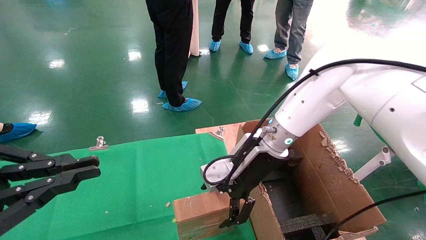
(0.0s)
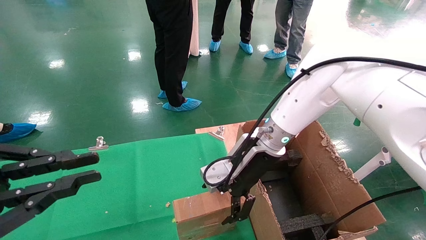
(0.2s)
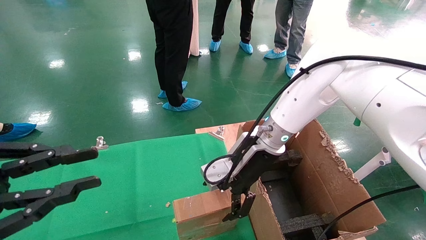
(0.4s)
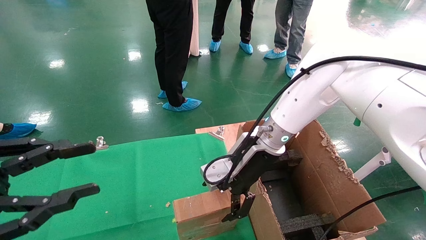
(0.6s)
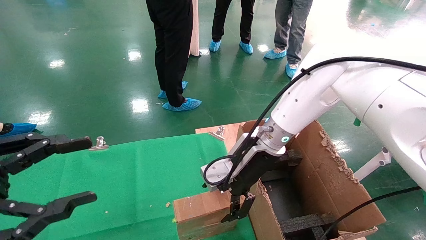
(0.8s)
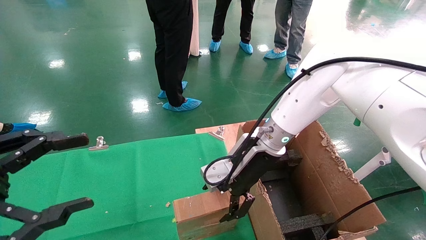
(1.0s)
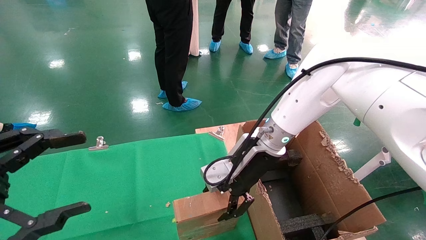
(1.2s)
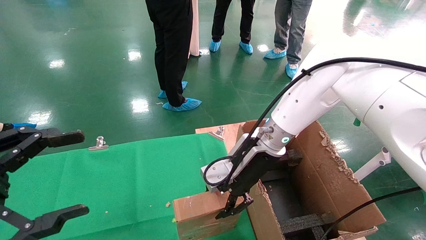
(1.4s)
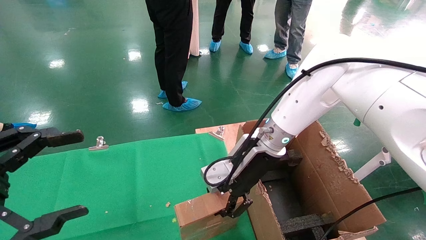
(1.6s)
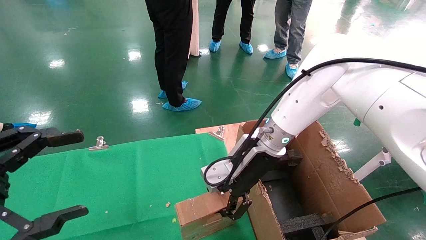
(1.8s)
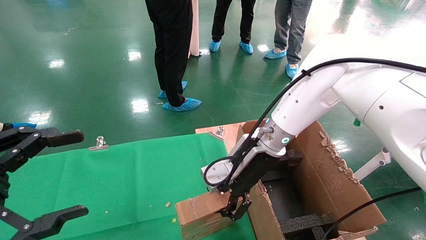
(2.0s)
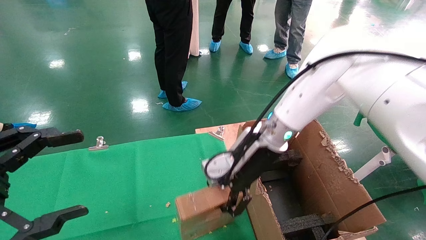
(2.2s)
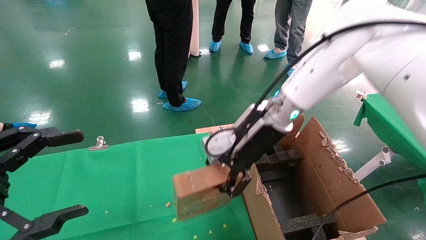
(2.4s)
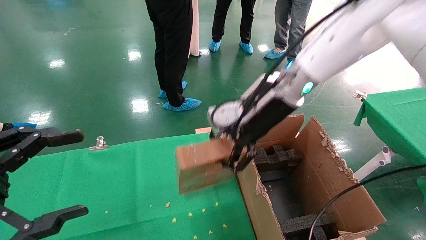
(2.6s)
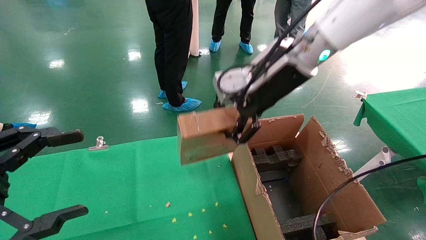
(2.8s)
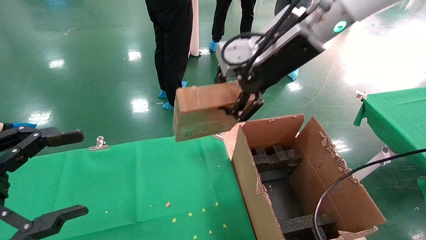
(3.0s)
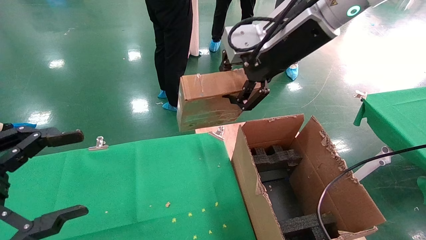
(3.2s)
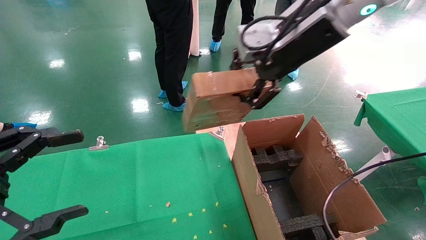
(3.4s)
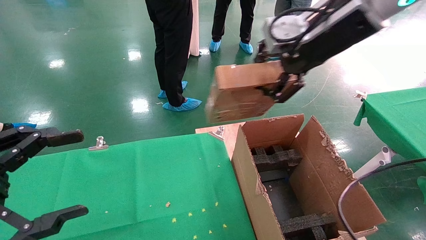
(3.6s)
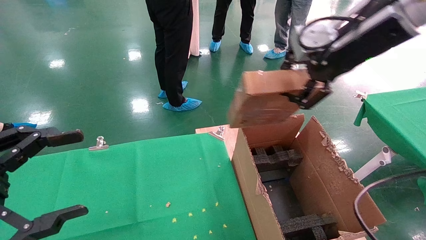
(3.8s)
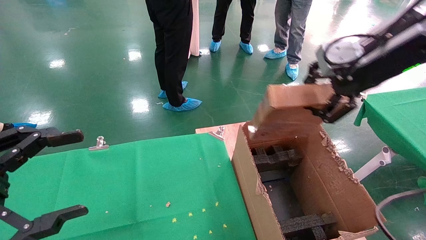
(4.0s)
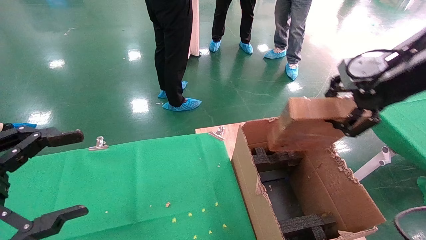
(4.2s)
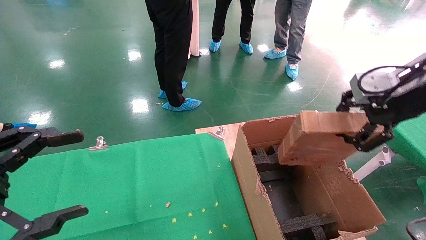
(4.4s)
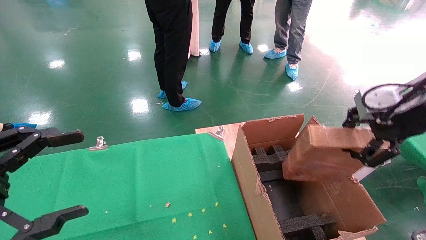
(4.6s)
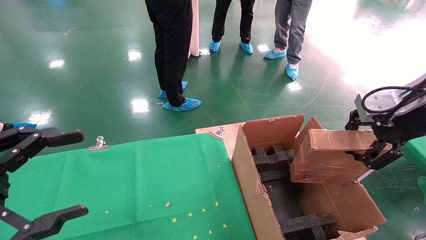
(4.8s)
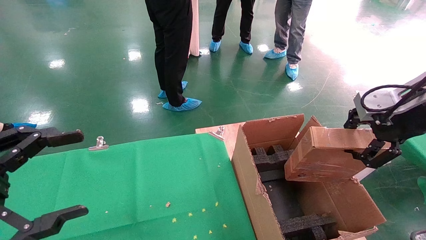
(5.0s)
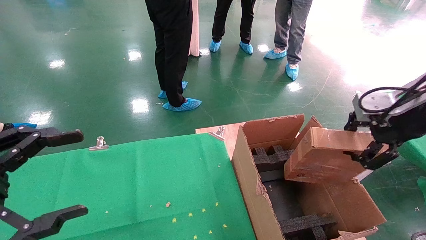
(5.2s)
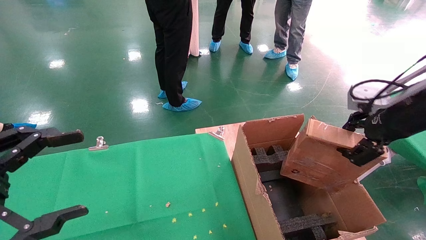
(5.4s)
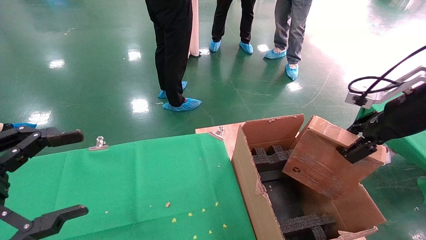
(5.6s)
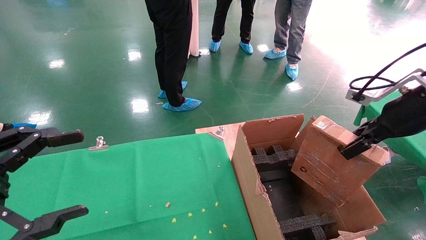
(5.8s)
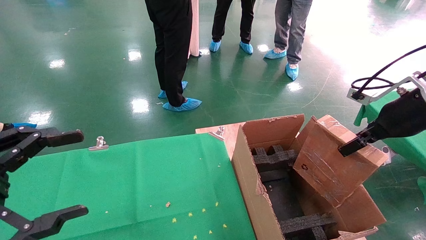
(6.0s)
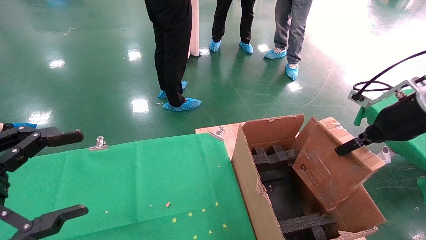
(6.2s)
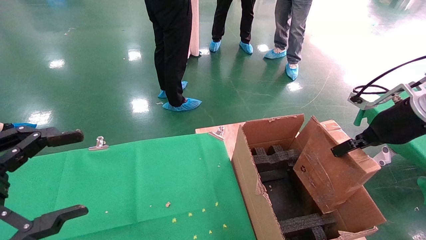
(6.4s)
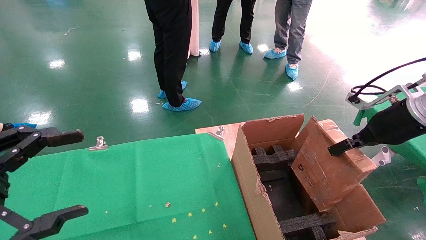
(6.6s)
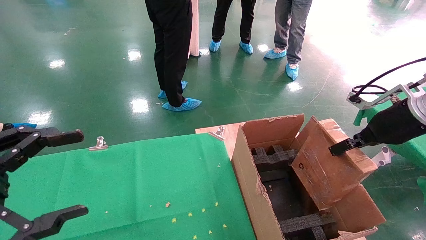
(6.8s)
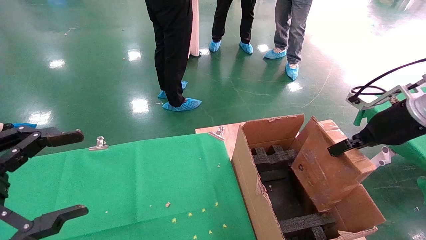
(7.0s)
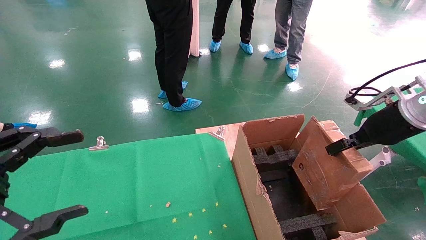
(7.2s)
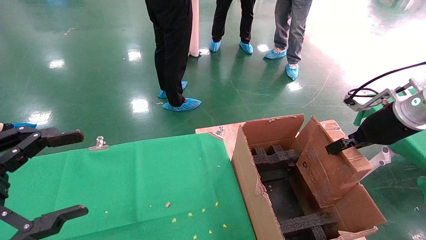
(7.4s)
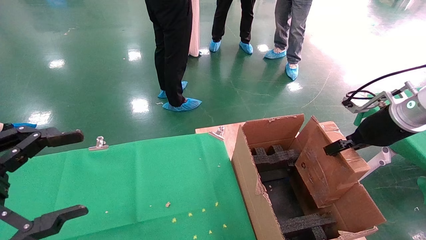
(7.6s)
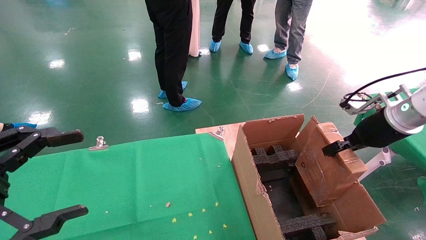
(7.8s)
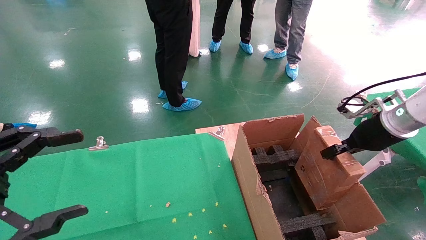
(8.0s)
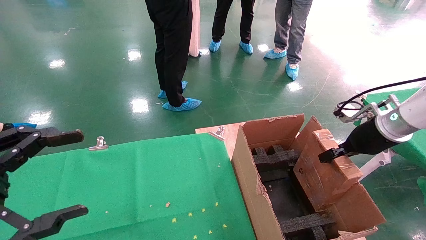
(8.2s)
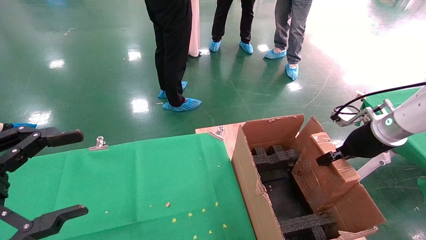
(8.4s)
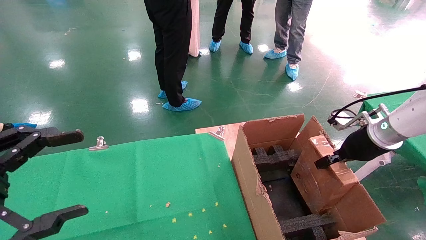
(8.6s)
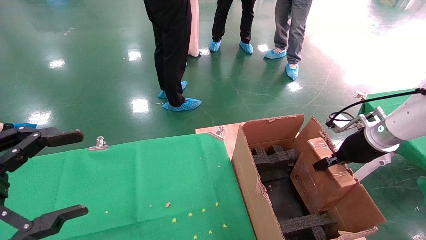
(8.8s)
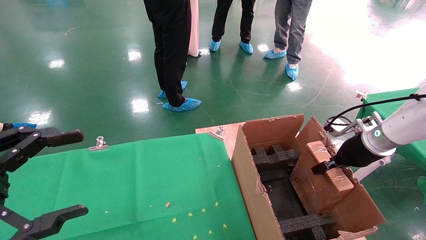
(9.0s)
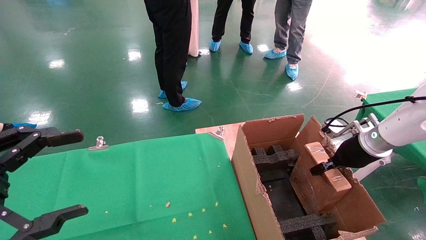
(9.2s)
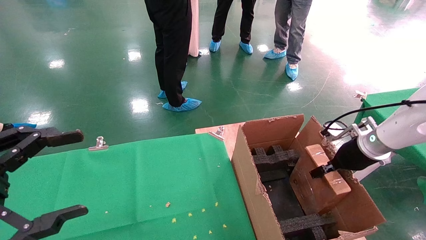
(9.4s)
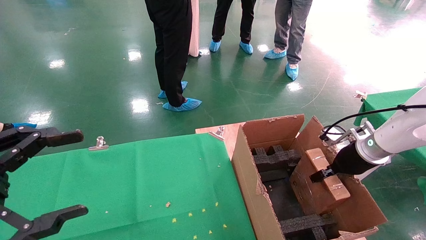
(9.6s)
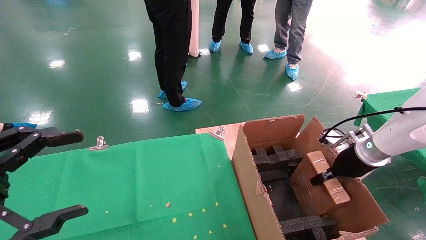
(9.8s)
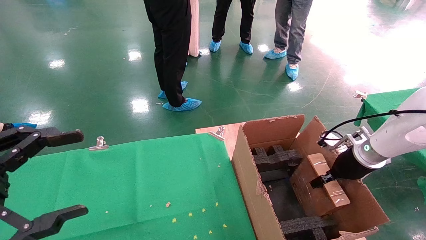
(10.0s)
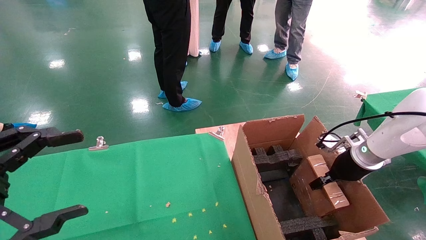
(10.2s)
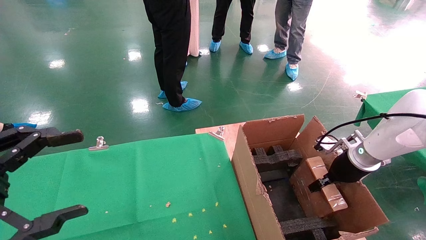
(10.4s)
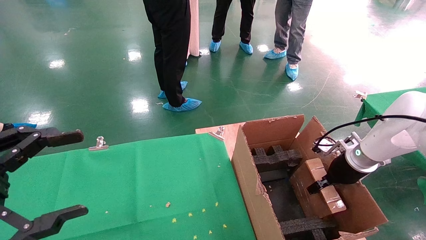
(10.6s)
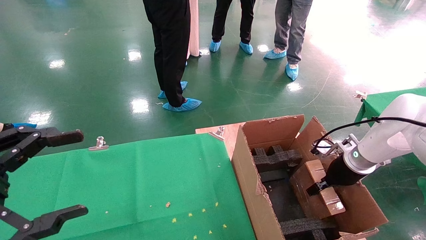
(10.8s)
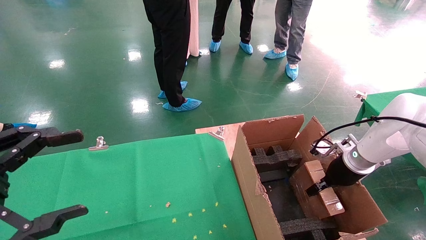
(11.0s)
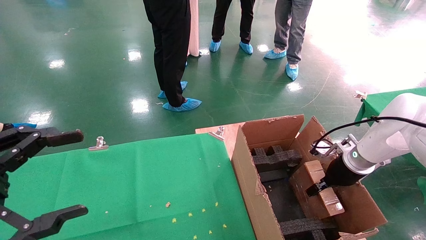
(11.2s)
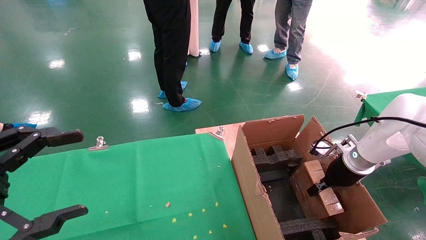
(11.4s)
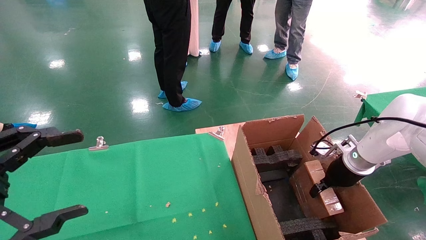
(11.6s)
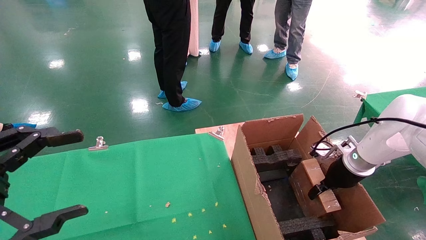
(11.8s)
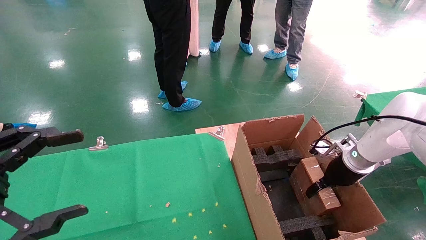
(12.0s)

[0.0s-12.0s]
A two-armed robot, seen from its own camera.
Task of the whole recording: using a robotic arm to pick up a cardboard box and palace it the carton.
Step, 0.0s to 1.8s: Pick up the mouse and the power cord paper box.
0.0s to 1.6s: The left gripper opens its fingers, while the right gripper closes up.
1.6s to 3.0s: The right gripper moves upward, some 20 cm.
3.0s to 4.4s: The right gripper moves to the right and backward, about 20 cm.
4.4s to 6.0s: The right gripper travels downward by some 5 cm.
6.0s to 7.6s: The right gripper shifts by about 5 cm.
7.6s to 9.0s: The right gripper goes some 10 cm downward.
9.0s to 10.4s: The right gripper moves downward, approximately 5 cm.
10.4s to 12.0s: The right gripper opens.

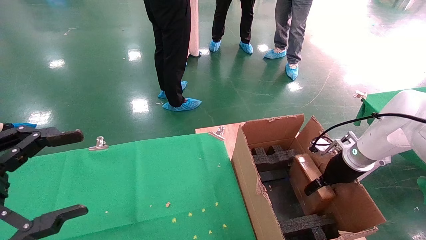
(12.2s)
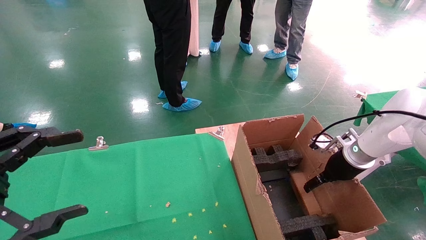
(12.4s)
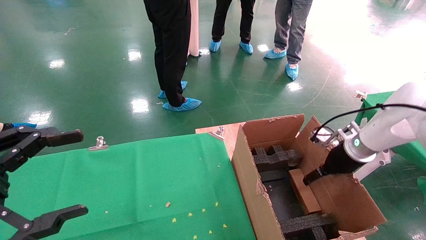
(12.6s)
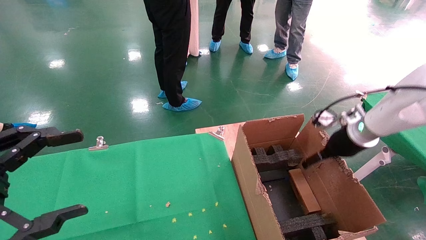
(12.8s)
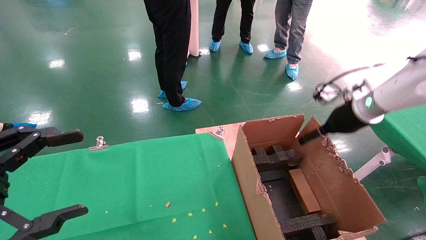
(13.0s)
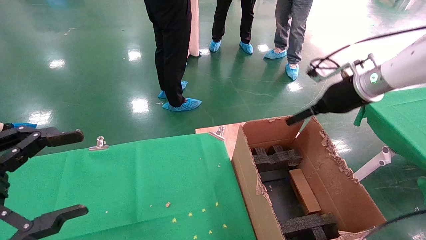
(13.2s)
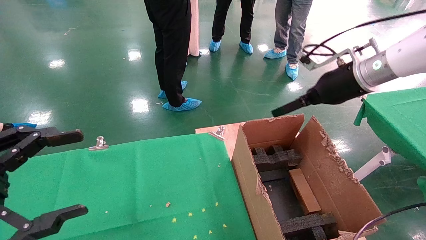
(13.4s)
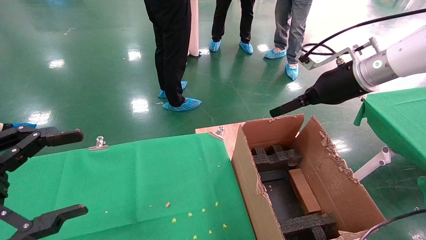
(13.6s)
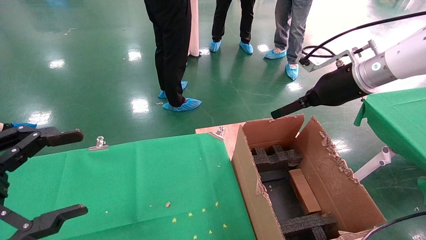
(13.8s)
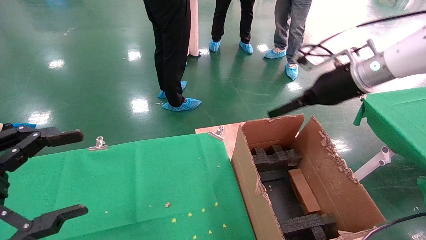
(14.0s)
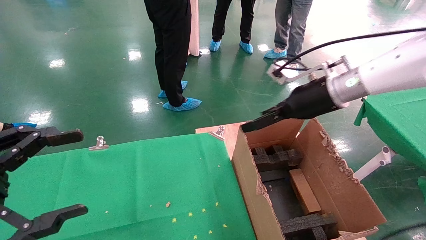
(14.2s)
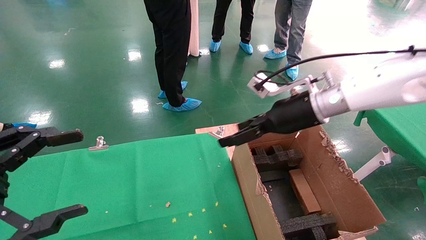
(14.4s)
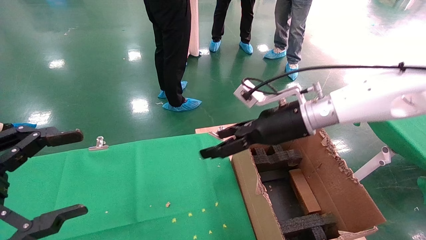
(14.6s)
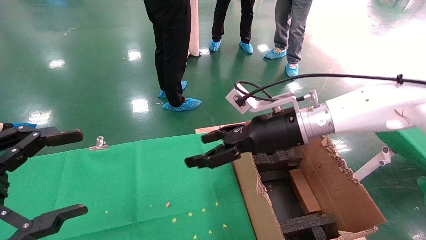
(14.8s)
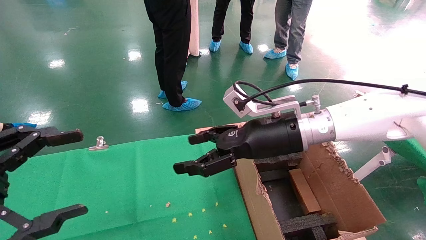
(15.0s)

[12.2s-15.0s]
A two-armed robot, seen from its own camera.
Task of the whole recording: using a robotic arm to pick up a cardboard box and palace it the carton.
12.2s to 13.6s: The right gripper is displaced upward by roughly 20 cm, and opens its fingers.
13.6s to 15.0s: The right gripper shifts some 20 cm to the left and downward.

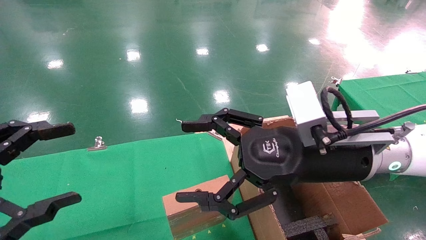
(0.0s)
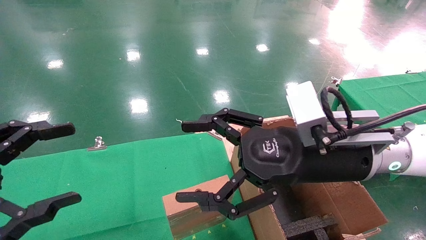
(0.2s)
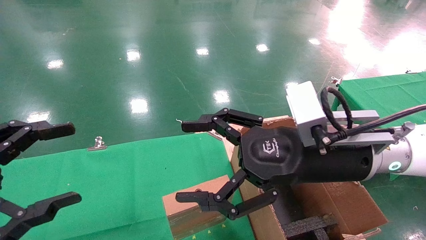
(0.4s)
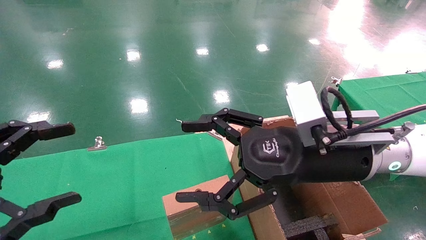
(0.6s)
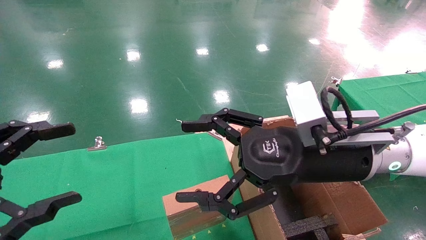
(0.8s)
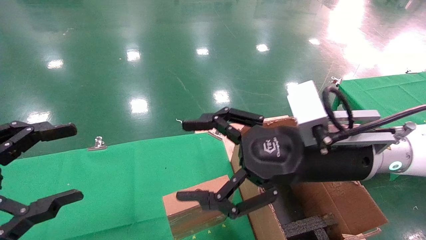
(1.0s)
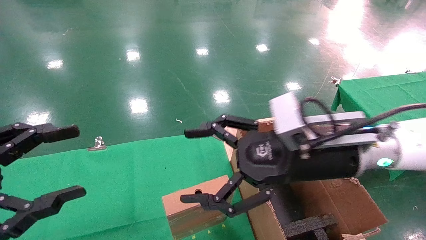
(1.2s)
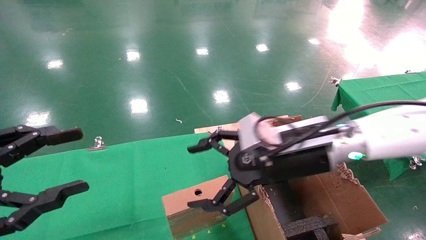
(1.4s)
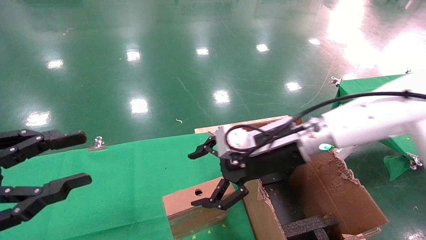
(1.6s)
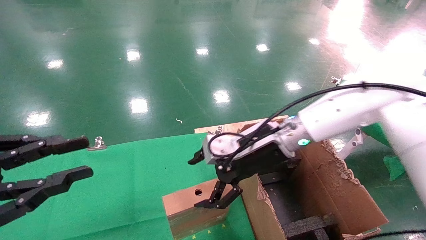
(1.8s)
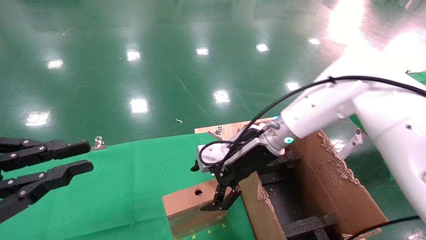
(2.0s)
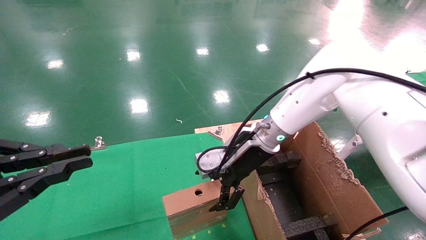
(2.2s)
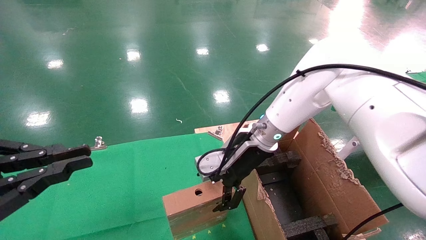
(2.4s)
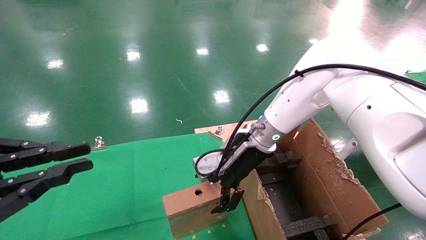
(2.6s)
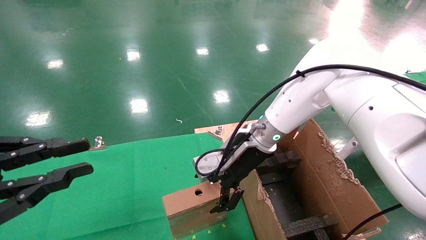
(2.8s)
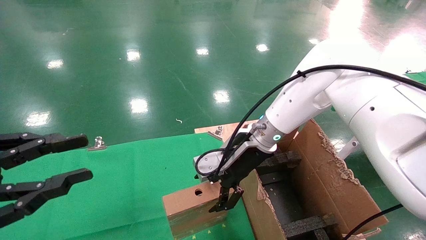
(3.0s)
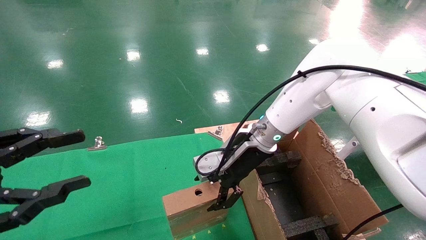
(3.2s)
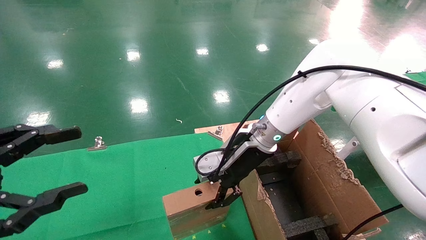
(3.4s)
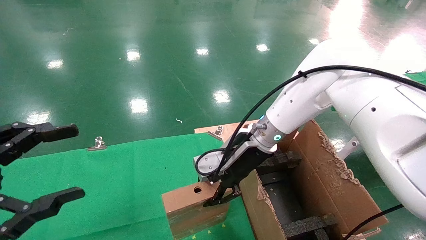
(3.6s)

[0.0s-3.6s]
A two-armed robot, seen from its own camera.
Task of the whole recording: using a robotic arm to pick up a cardboard box and palace it the carton.
0.0s to 1.8s: The left gripper closes up. Meanwhile the right gripper goes about 10 cm forward.
1.8s to 3.6s: The right gripper closes up. Meanwhile the left gripper opens its fingers.
